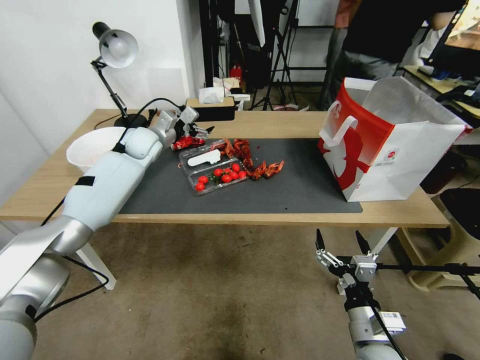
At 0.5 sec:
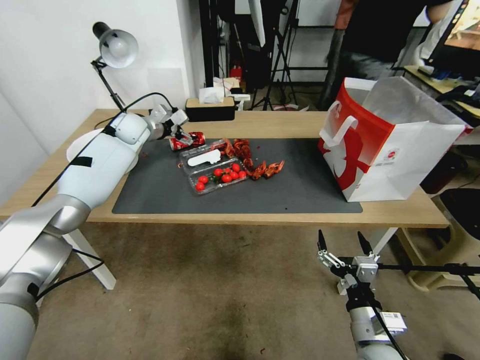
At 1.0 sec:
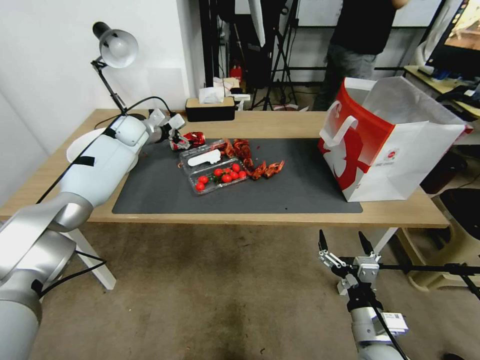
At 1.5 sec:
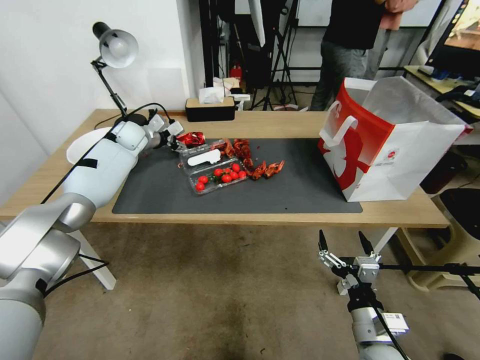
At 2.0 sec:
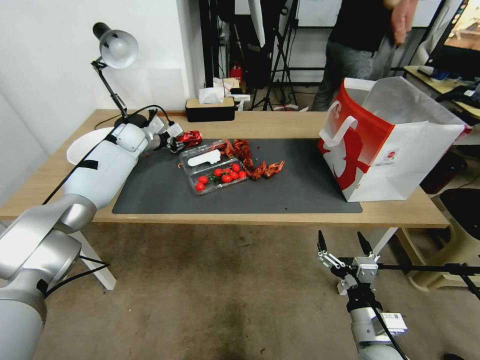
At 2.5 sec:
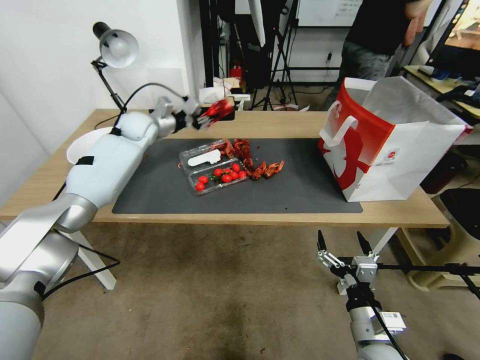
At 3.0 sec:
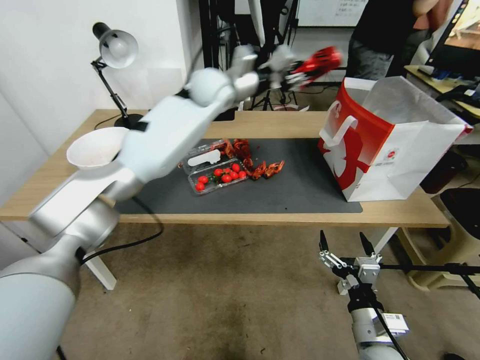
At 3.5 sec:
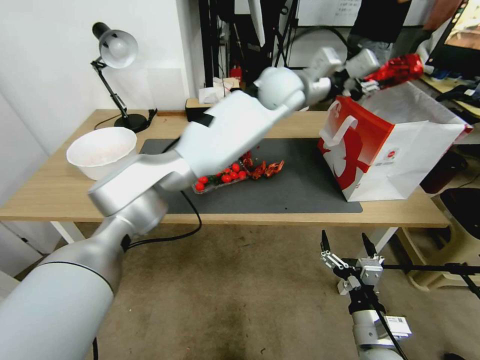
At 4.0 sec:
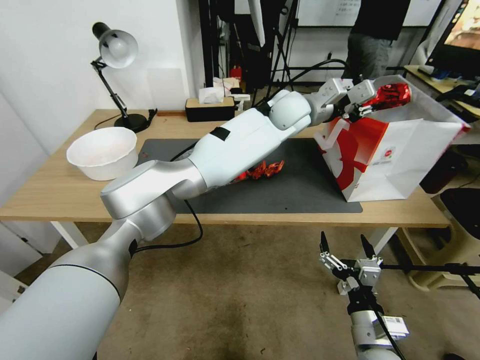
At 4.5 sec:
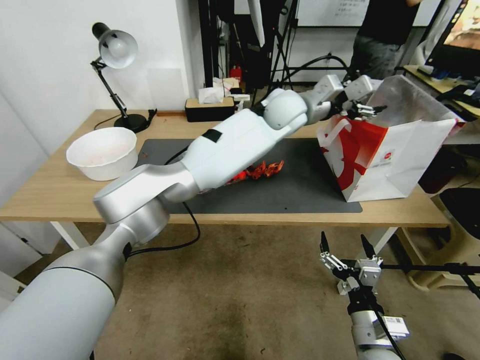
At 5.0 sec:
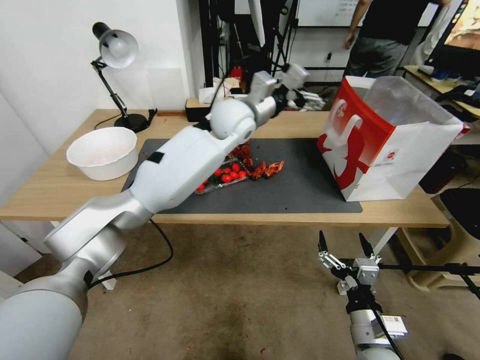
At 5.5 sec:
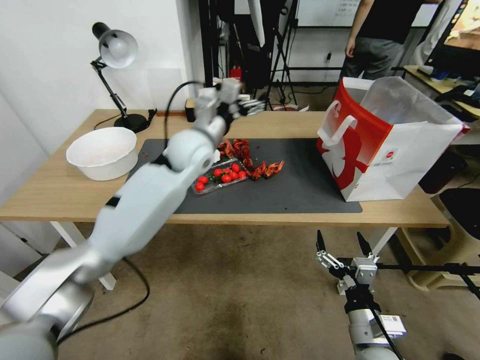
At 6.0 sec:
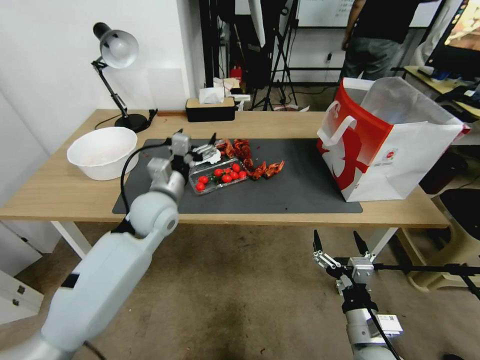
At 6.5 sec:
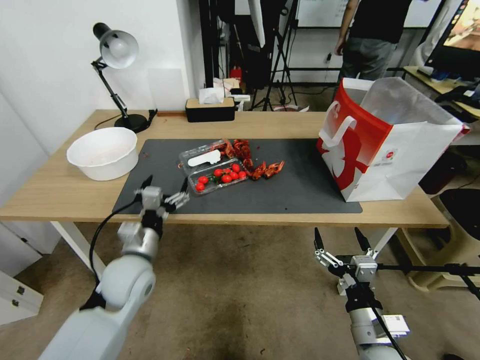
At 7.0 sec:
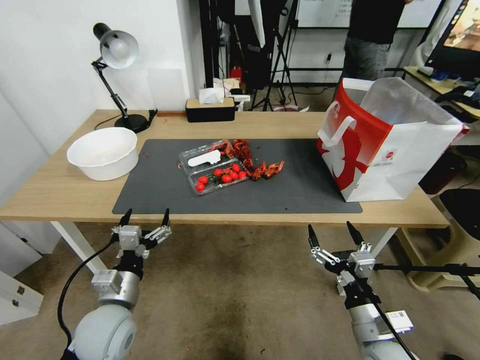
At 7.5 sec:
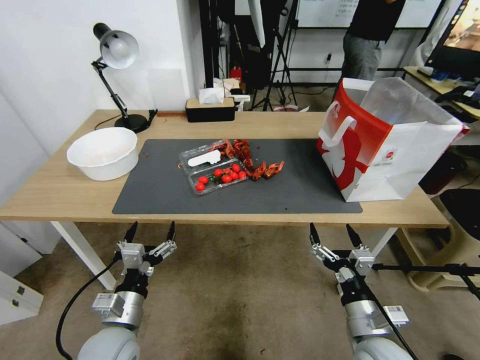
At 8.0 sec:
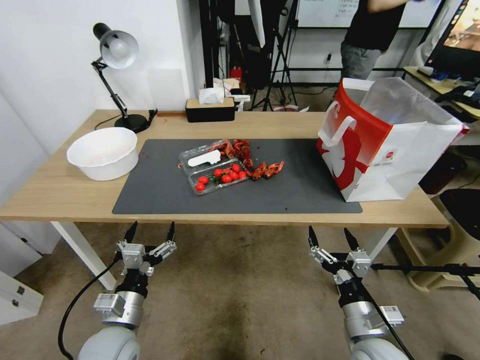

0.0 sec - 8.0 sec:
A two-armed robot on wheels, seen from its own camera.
0.0 sec - 2.0 sec: The left gripper goes some 10 cm forward and to the left, and closes.
2.0 sec - 4.0 sec: The left gripper shifts roughly 40 cm to the right.
4.0 sec - 6.0 sec: The left gripper is displaced to the left, backward and downward by approximately 40 cm, and opens up.
6.0 sec - 8.0 sec: The left gripper heads backward and downward, covering roughly 25 cm.
